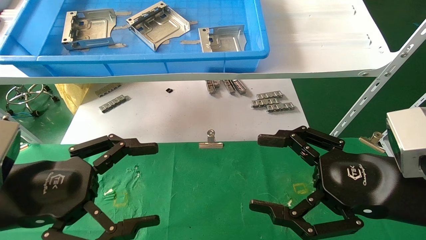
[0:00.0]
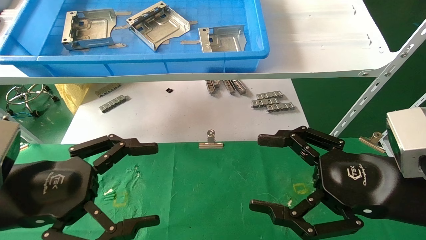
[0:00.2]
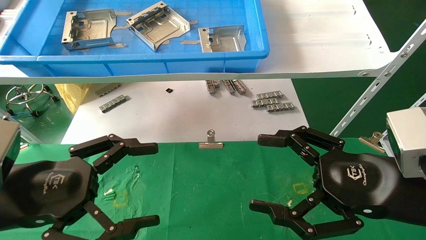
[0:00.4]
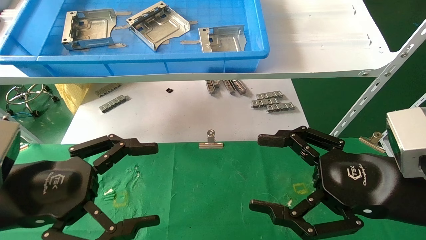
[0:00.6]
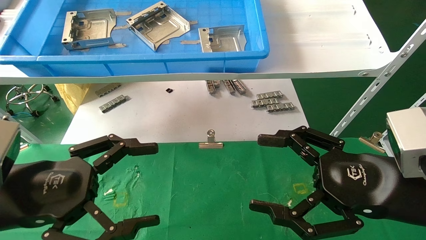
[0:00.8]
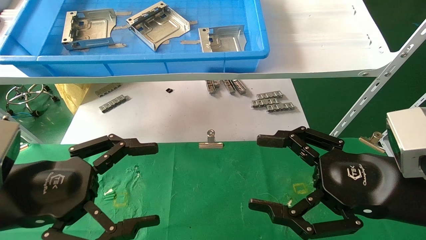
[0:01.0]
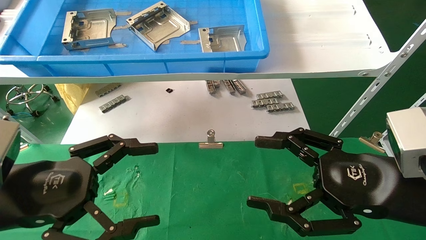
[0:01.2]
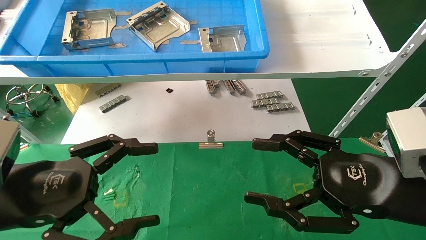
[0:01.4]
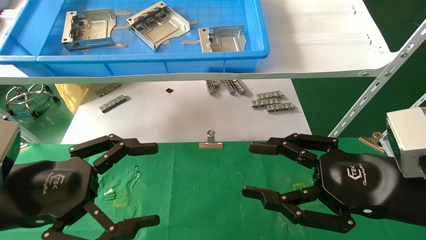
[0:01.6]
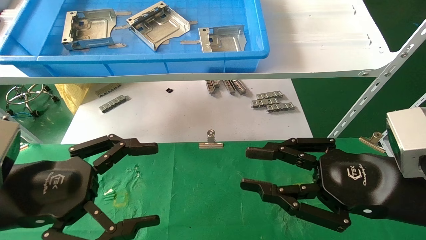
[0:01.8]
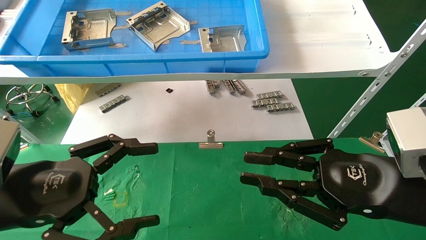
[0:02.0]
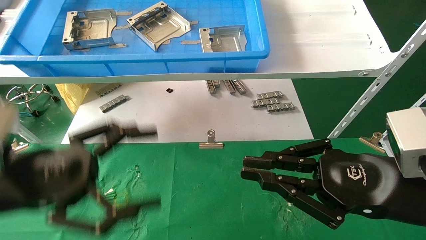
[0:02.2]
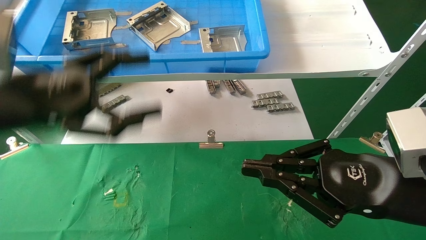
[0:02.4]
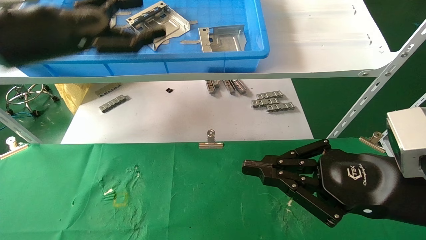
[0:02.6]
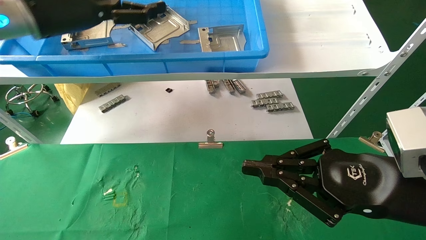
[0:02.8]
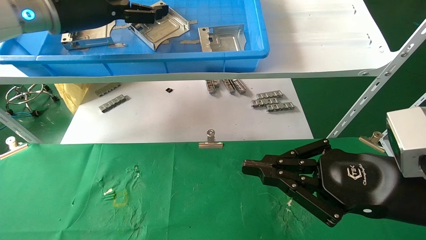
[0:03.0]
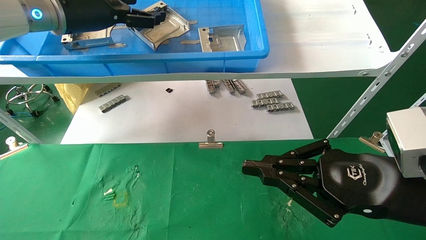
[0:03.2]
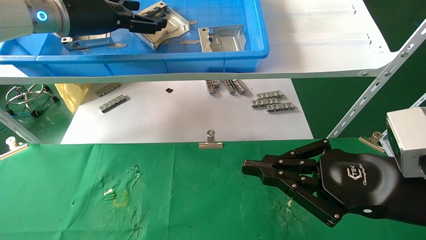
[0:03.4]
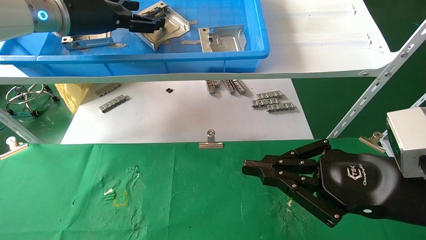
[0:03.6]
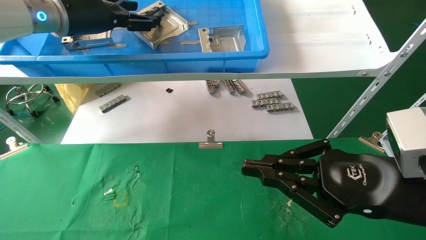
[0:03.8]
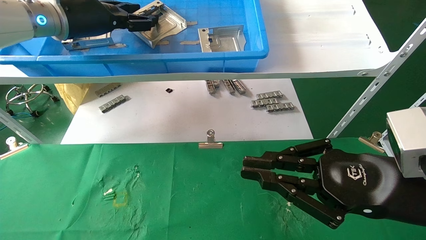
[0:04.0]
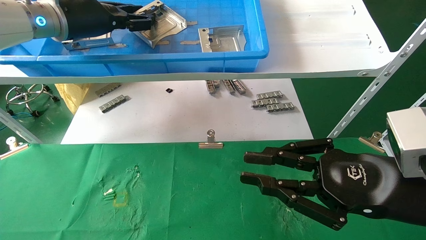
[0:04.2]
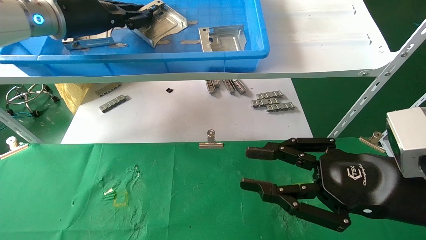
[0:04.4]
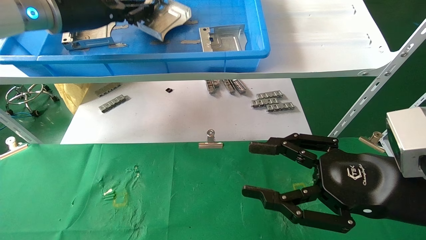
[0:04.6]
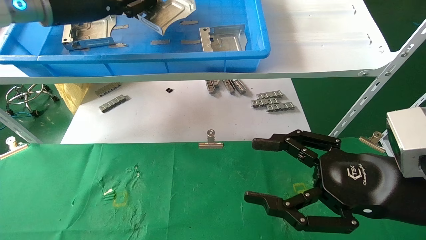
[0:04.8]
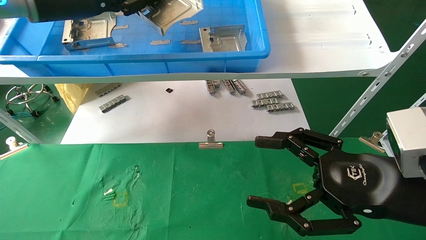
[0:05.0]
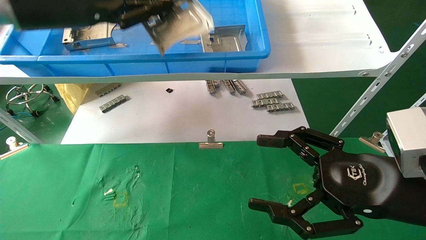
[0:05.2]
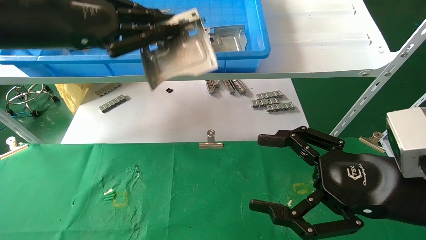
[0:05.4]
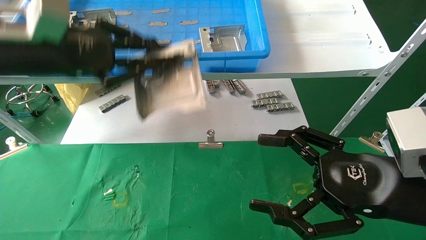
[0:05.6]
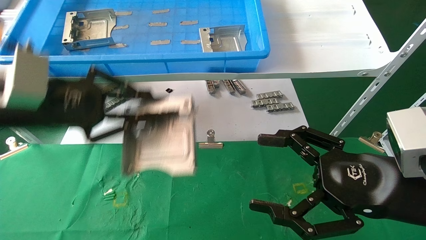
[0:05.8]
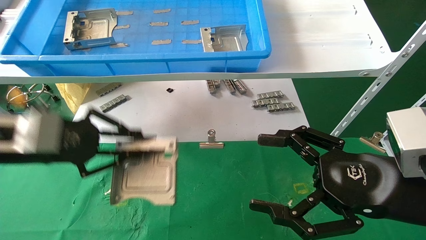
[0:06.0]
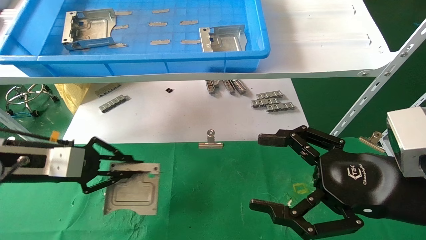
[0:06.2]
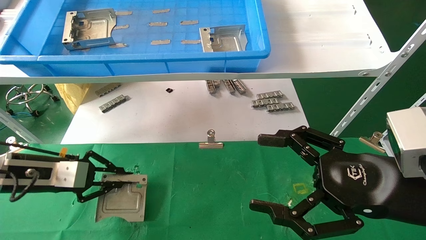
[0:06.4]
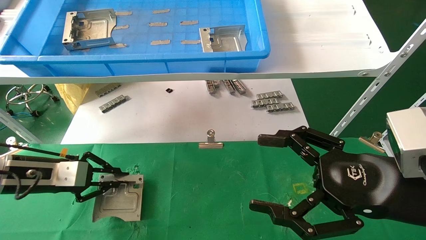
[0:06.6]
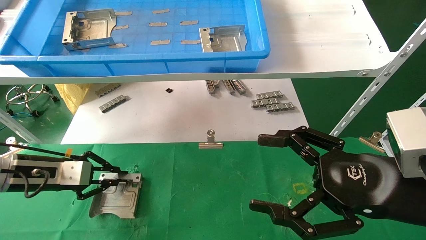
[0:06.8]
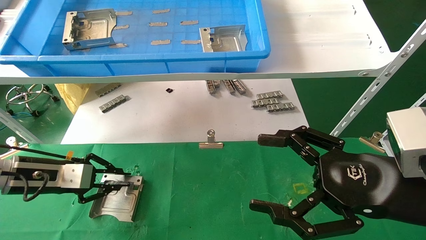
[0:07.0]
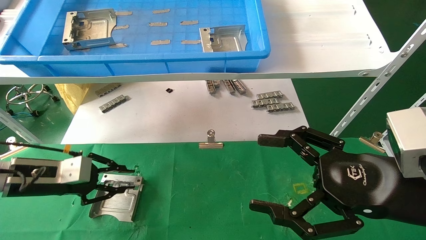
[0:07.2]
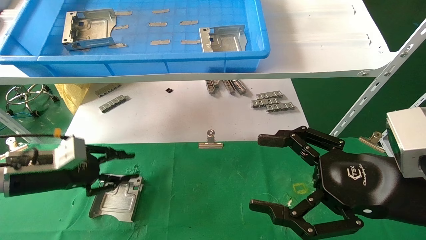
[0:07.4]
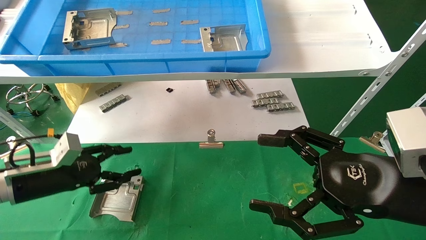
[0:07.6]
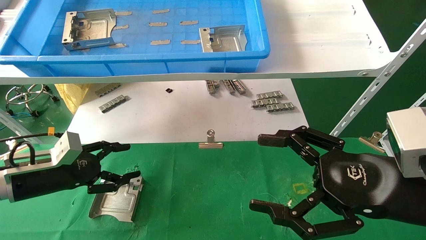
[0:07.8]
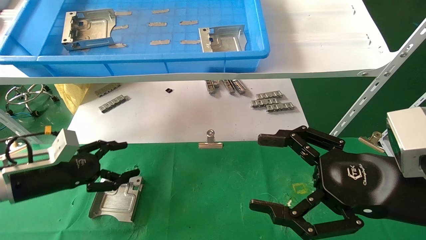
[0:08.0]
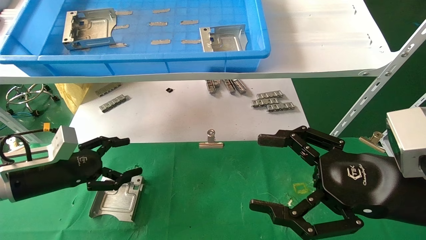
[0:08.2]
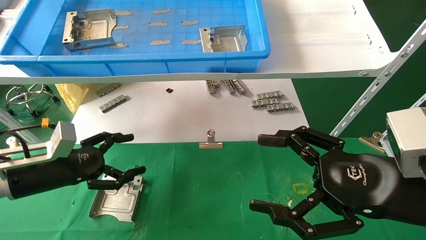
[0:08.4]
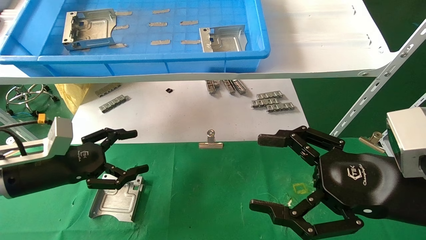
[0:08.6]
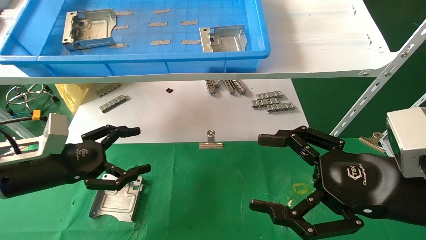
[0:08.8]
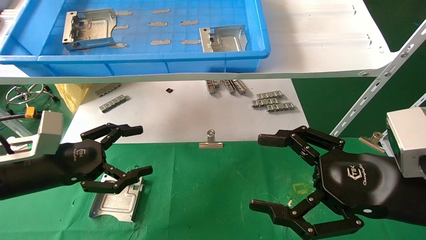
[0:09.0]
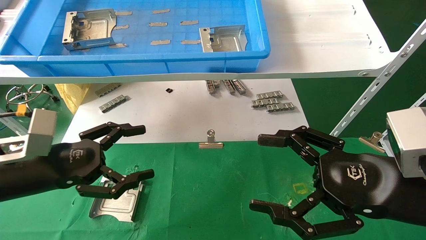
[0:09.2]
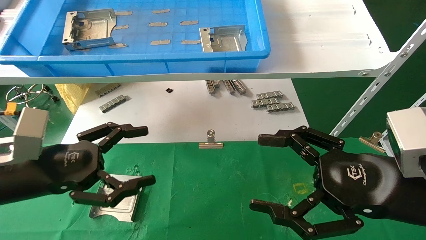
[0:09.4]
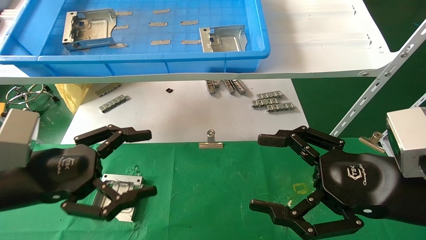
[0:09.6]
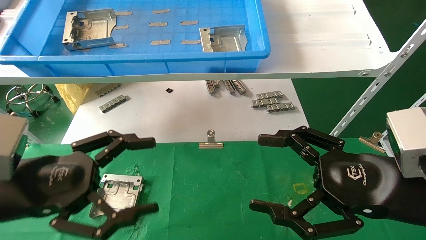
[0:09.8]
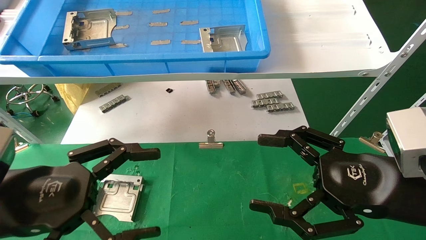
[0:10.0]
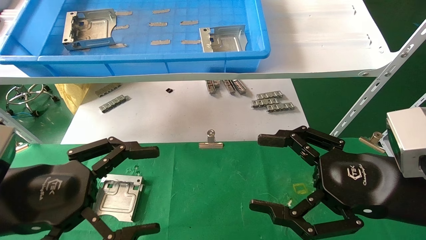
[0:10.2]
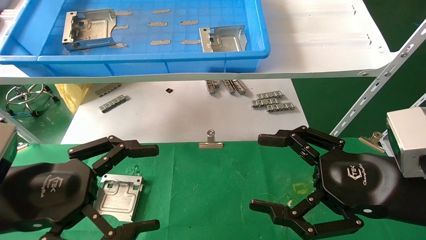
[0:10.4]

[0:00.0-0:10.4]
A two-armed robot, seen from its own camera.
Task of the whole recording: use the mechanical arm to pick up the parts and place them on the table.
Step, 0:02.6 to 0:04.4: Pick up the hard drive bracket from the feeding area.
Step, 0:04.6 to 0:06.8: Place the hard drive bracket into the box.
0:00.0 to 0:01.4: Both grippers stay about where they are.
0:01.4 to 0:03.0: The left gripper moves upward and forward, some 30 cm, while the right gripper closes its fingers.
0:03.0 to 0:04.4: The left gripper closes its fingers.
0:04.4 to 0:06.0: The right gripper opens. The left gripper heads downward and backward, covering roughly 20 cm.
0:06.0 to 0:07.4: The left gripper shifts about 15 cm downward and forward.
0:07.4 to 0:09.0: The left gripper is displaced backward by some 5 cm, and opens.
0:09.0 to 0:10.4: The left gripper moves backward, approximately 10 cm.

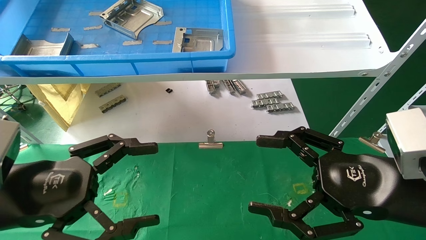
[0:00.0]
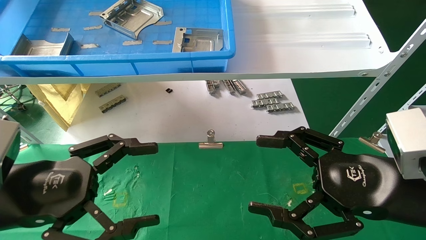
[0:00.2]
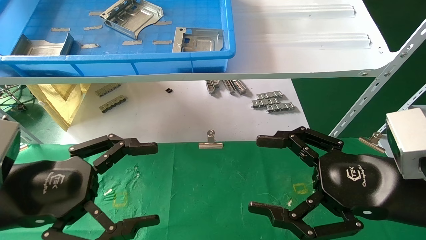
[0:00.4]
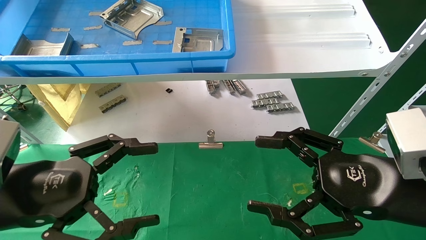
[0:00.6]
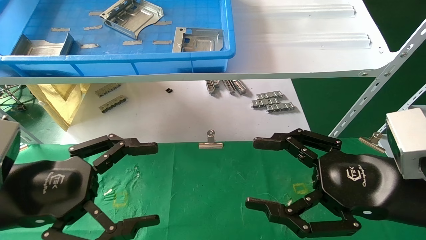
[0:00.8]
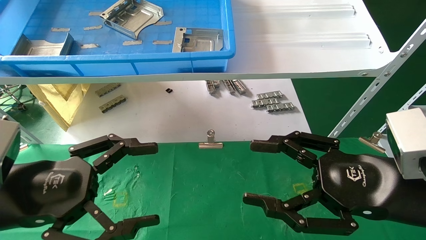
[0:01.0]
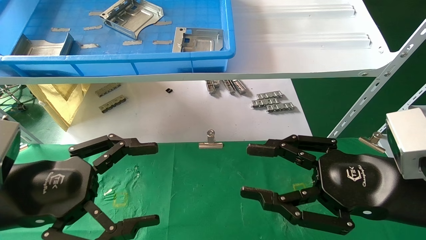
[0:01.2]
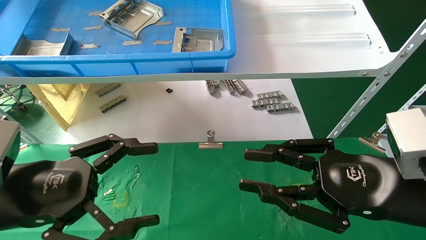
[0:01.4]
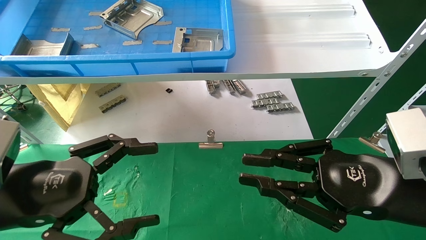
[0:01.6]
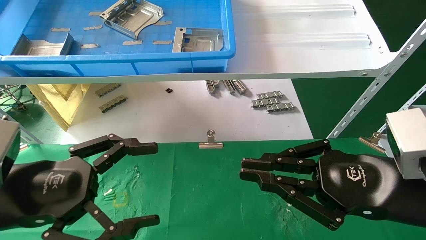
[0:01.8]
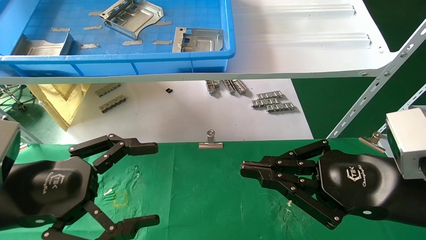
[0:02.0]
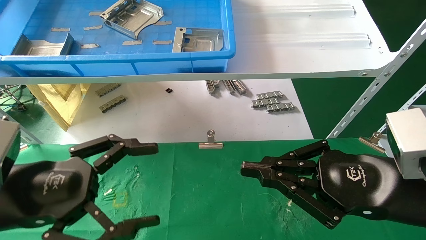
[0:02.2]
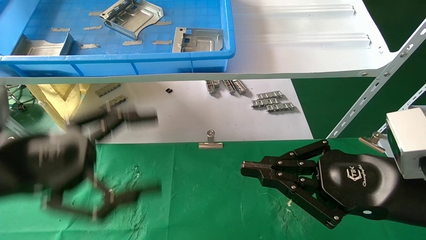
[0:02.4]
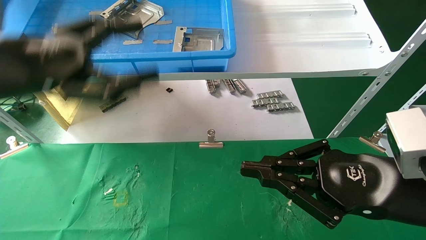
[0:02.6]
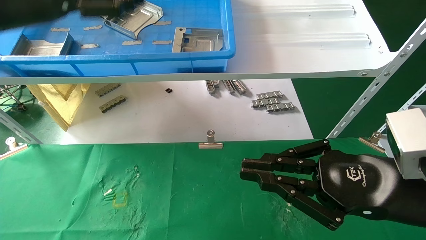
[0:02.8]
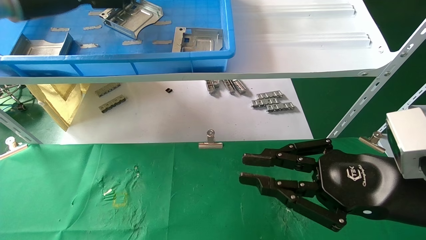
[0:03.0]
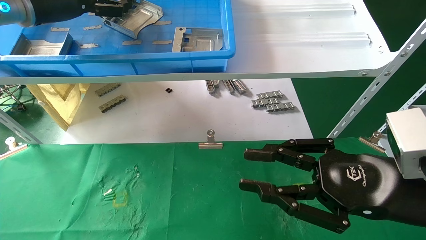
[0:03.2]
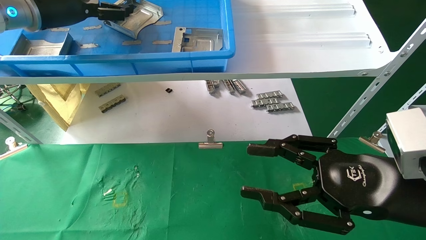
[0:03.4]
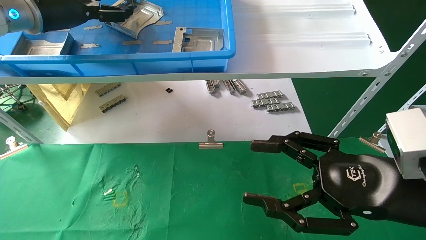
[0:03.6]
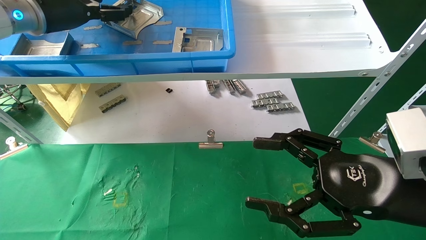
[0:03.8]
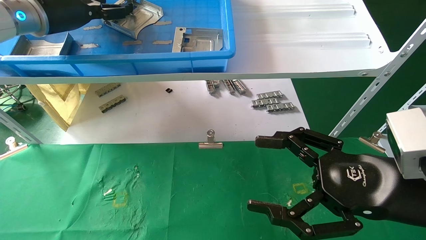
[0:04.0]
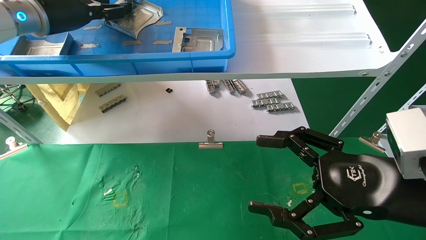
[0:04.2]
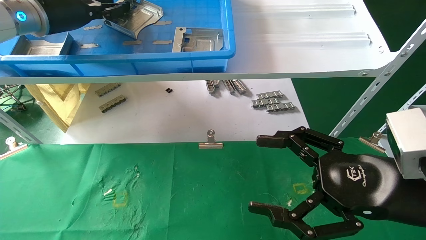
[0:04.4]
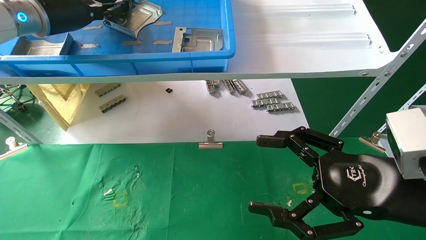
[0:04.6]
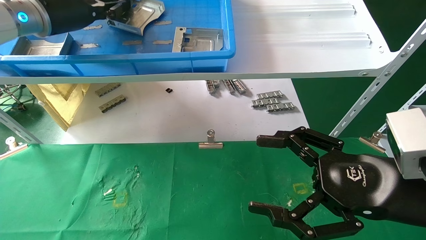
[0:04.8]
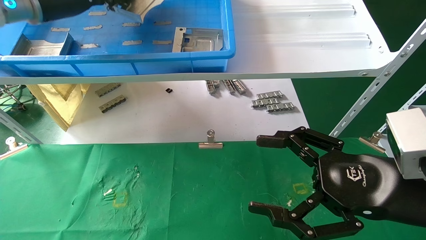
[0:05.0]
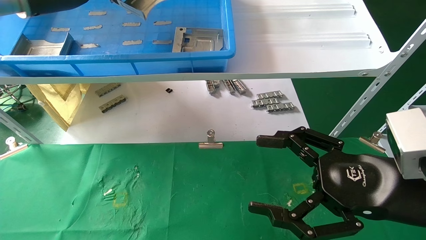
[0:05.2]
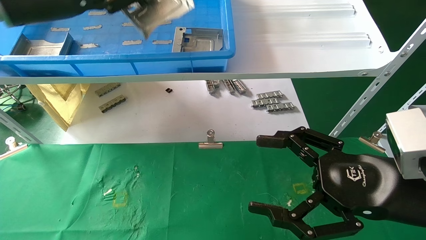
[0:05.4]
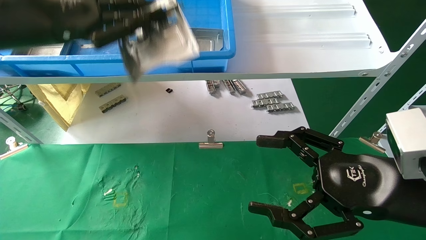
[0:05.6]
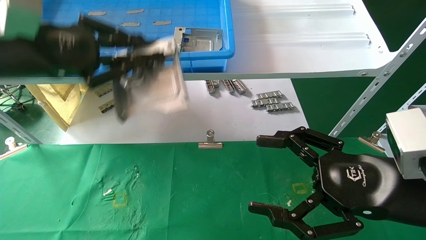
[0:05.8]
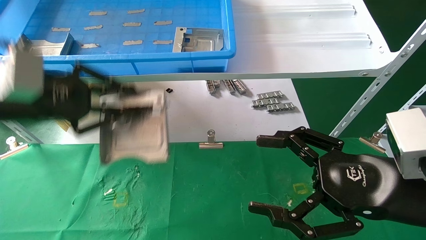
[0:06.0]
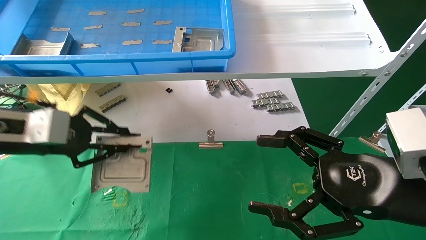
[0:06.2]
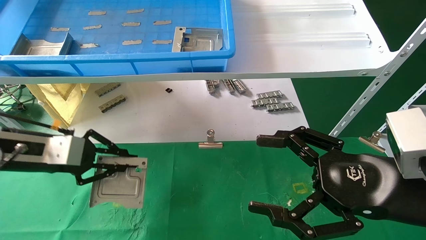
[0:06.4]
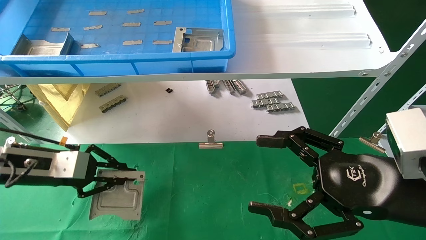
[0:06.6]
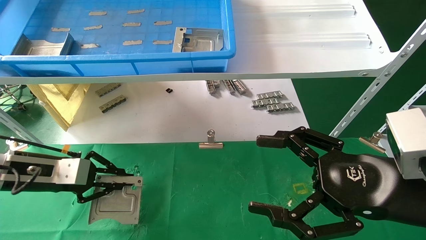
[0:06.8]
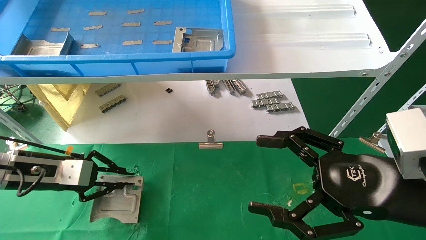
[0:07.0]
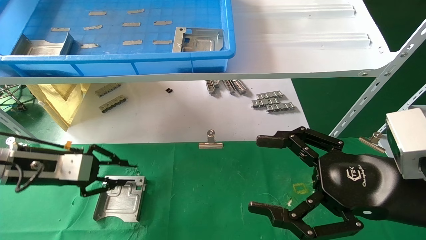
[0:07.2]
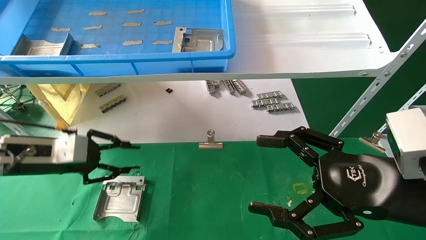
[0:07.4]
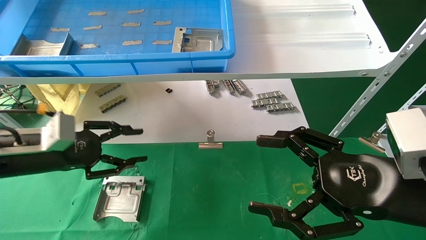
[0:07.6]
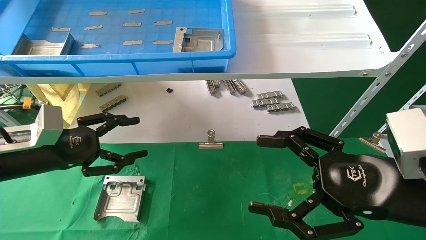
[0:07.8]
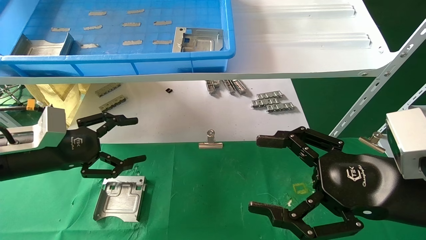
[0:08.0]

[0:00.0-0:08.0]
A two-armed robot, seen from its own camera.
Task of the whole recording: use the mechanical arm to pick up the parts and place them on the table.
Step, 0:01.8 to 0:04.4: Pick up the hard drive bracket from the feeding area.
0:00.0 to 0:01.6: The right gripper closes.
0:01.6 to 0:03.2: The left gripper travels upward and forward by some 30 cm.
0:03.2 to 0:04.8: The left gripper closes its fingers. Meanwhile the right gripper opens its fingers.
0:04.8 to 0:06.4: The left gripper shifts approximately 25 cm downward and backward.
0:06.4 to 0:08.0: The left gripper opens.
